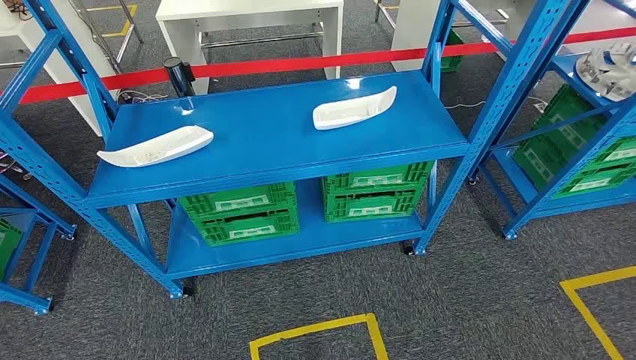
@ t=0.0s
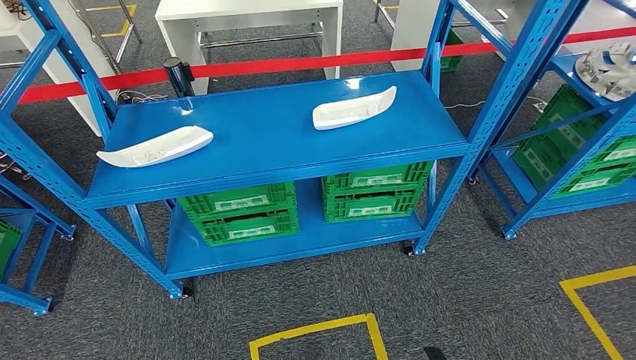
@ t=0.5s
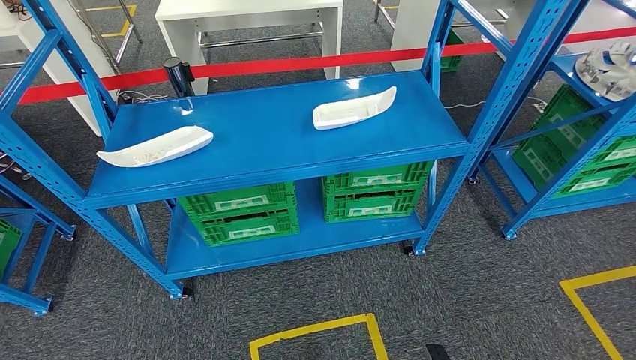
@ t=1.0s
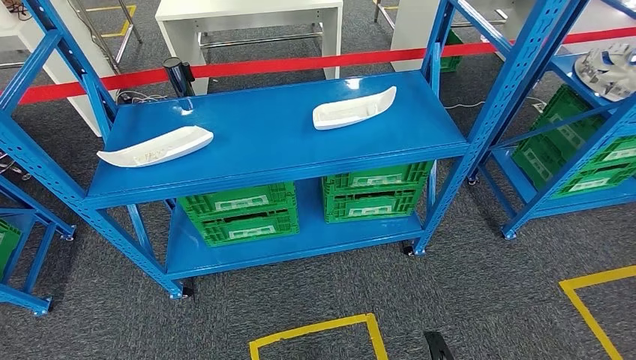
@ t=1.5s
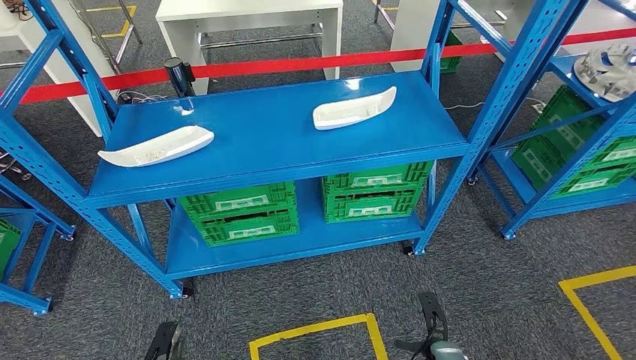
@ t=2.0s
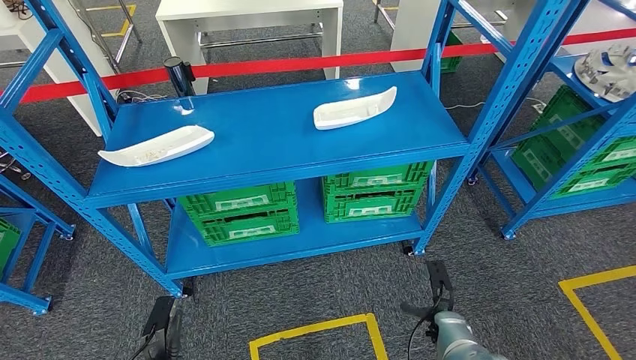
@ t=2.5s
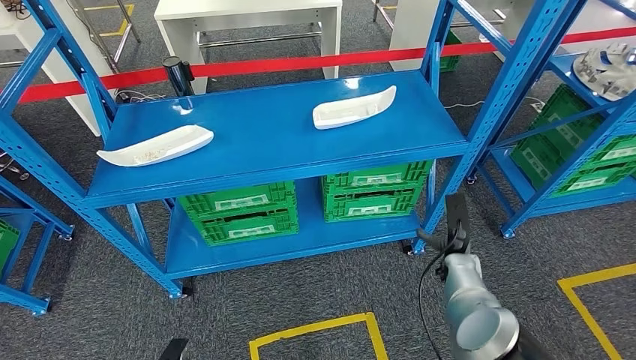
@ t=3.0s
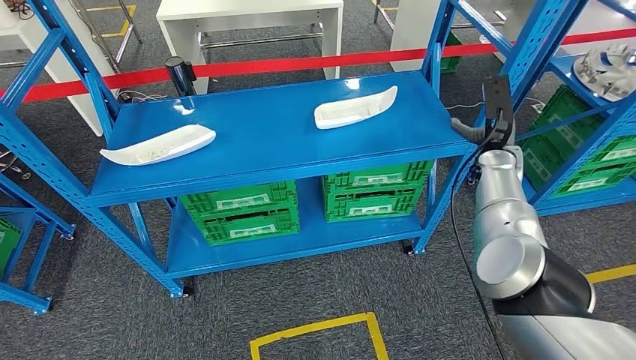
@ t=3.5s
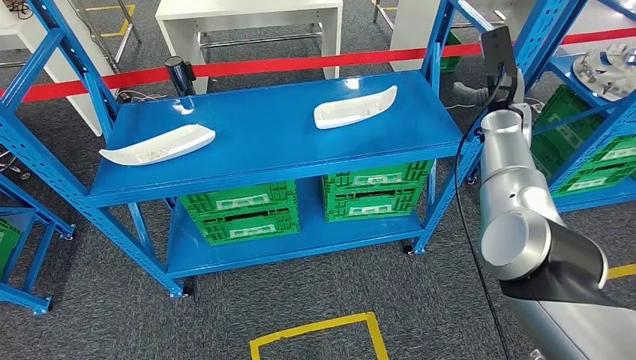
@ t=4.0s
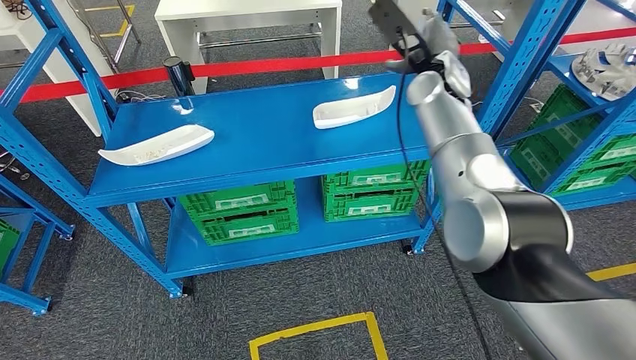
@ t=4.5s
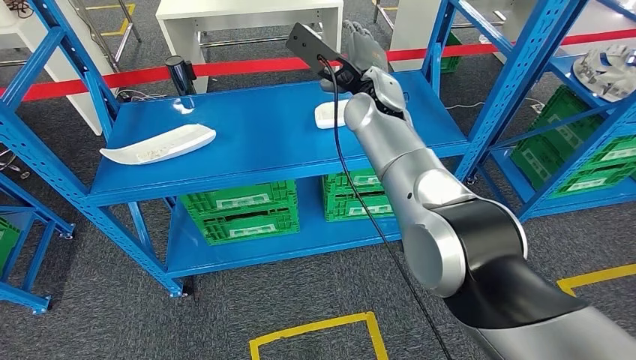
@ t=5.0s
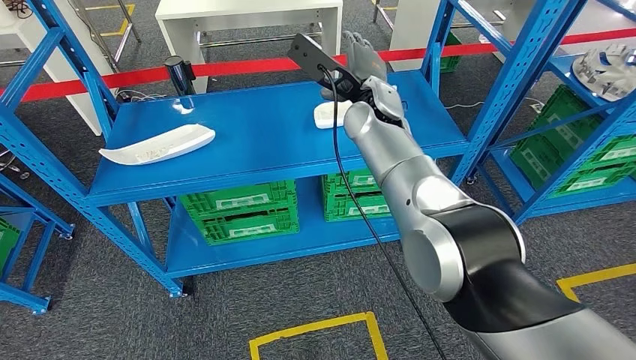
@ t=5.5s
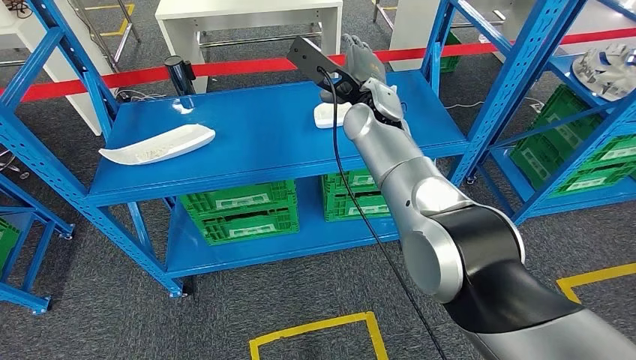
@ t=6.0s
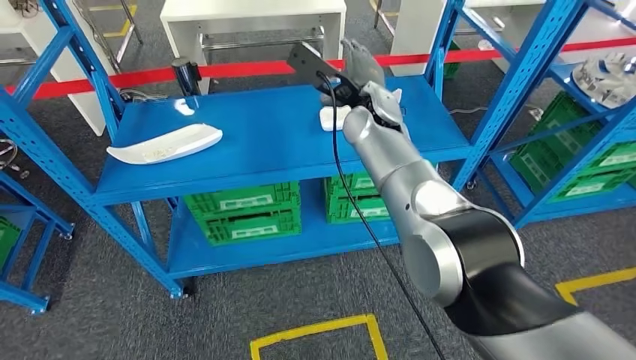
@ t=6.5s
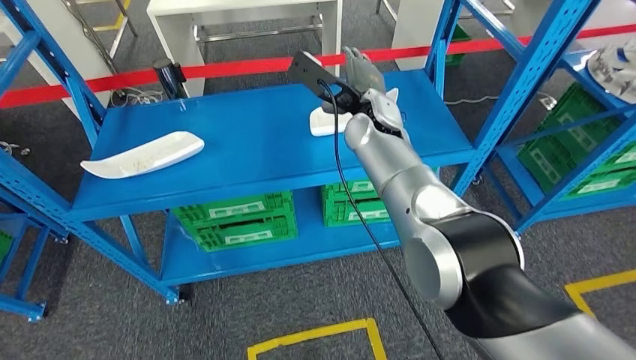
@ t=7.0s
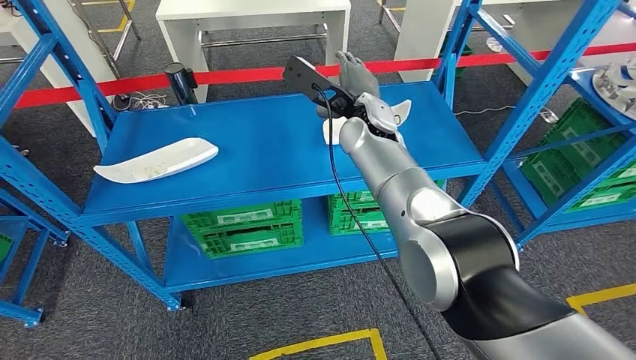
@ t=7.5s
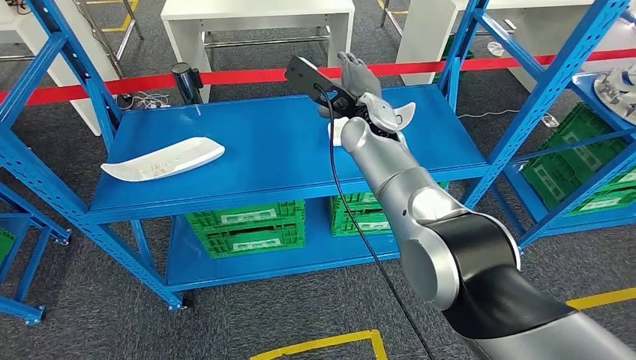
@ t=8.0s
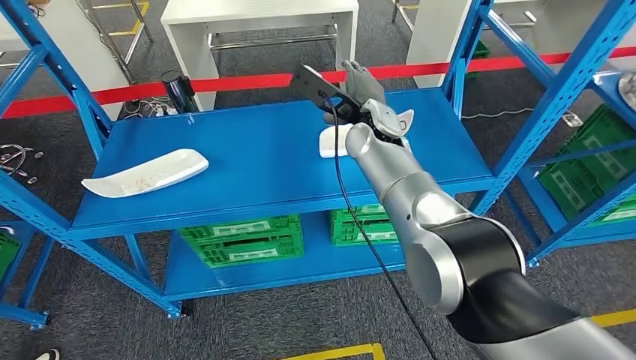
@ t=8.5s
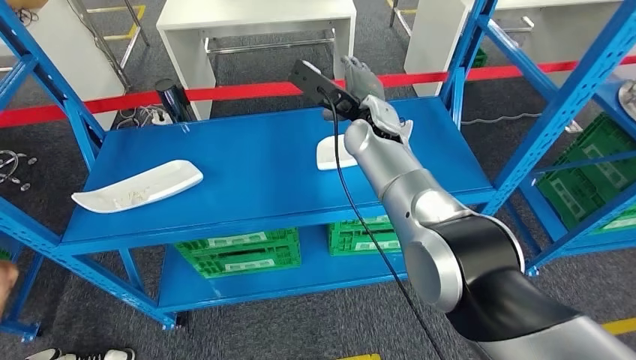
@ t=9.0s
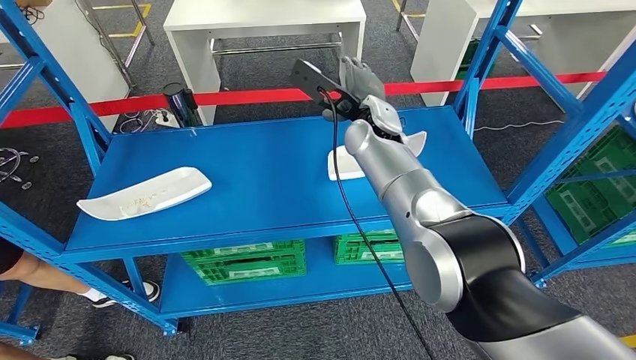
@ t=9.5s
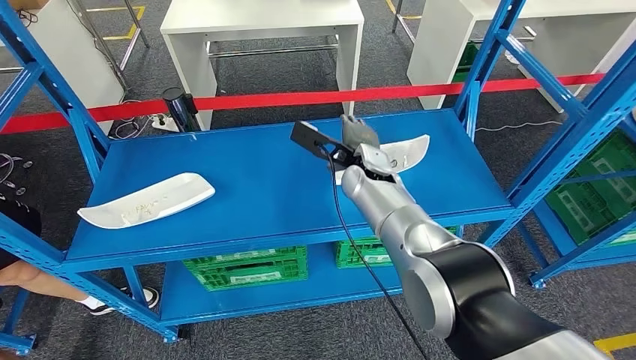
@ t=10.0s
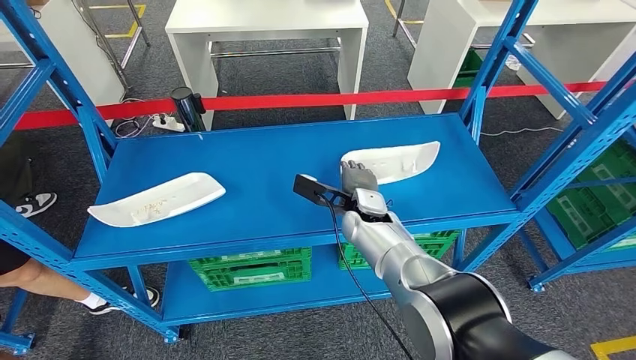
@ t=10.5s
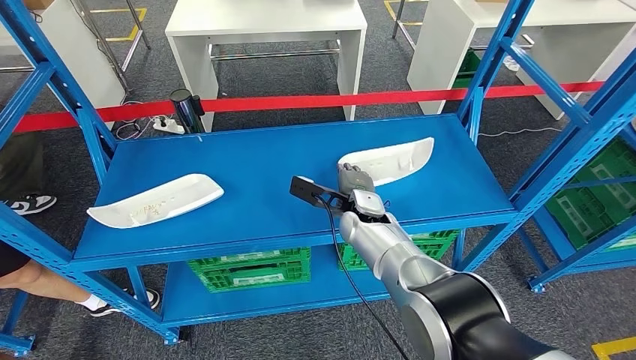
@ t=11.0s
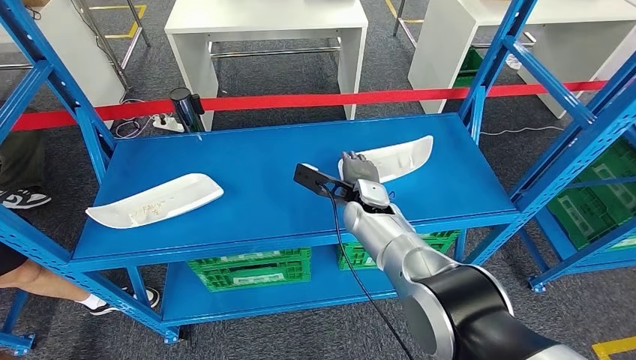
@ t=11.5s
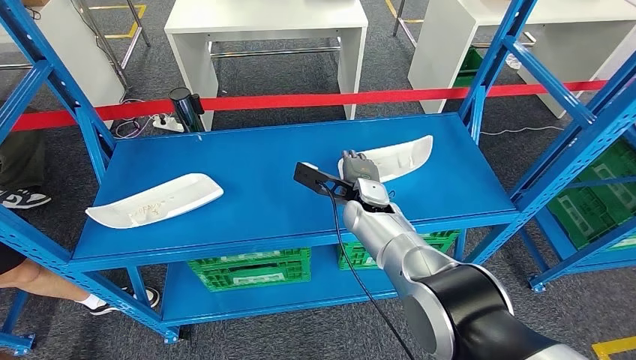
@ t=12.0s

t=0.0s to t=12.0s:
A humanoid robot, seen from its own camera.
t=2.0s to t=4.0s: The left hand travels backward by some 10 cm. The right hand shifts some 50 cm upward and forward.
t=4.0s to t=6.0s: The right hand is displaced to the left by some 25 cm.

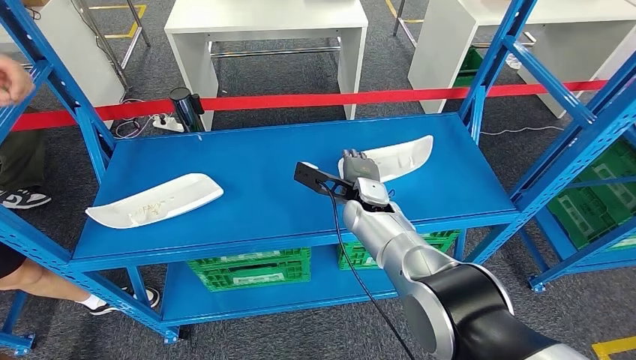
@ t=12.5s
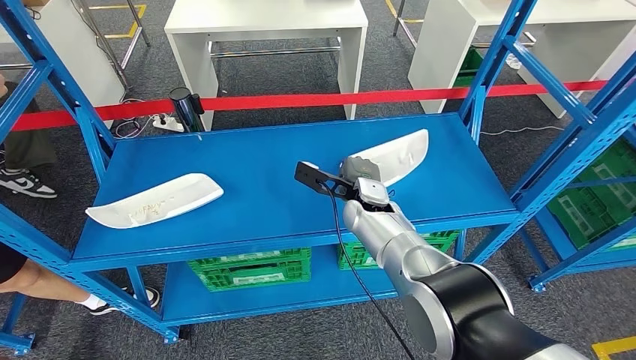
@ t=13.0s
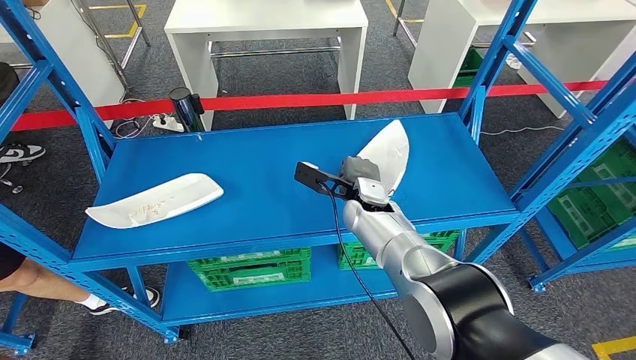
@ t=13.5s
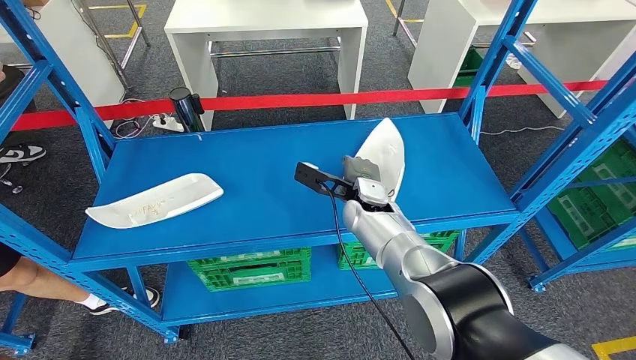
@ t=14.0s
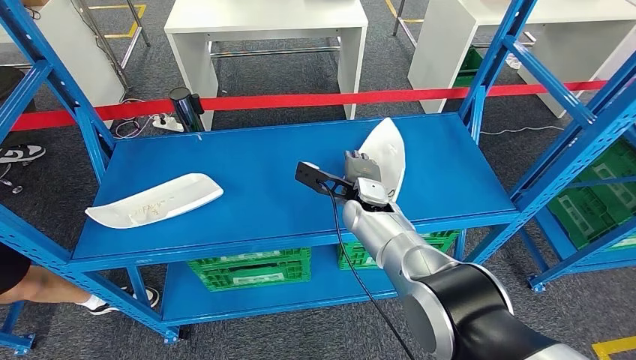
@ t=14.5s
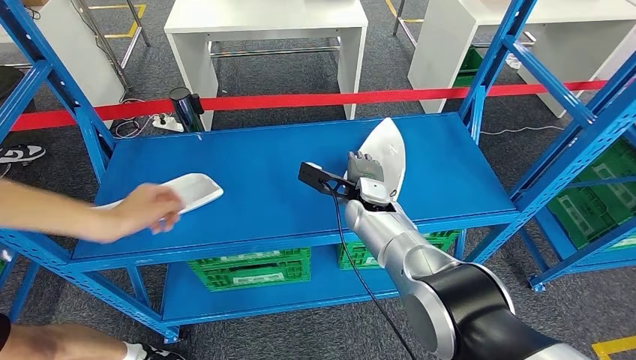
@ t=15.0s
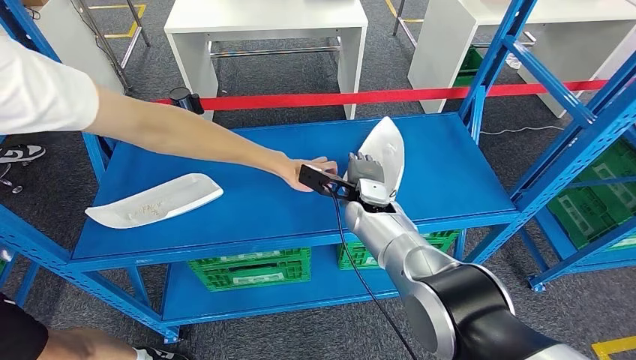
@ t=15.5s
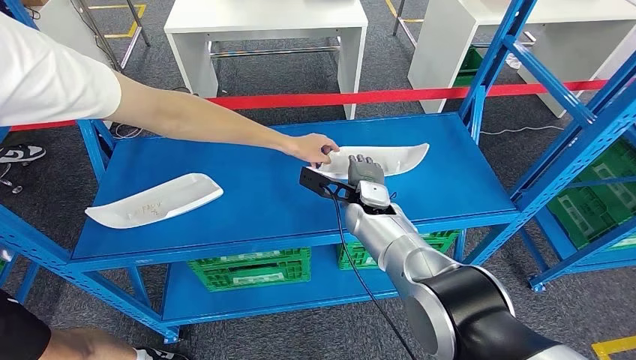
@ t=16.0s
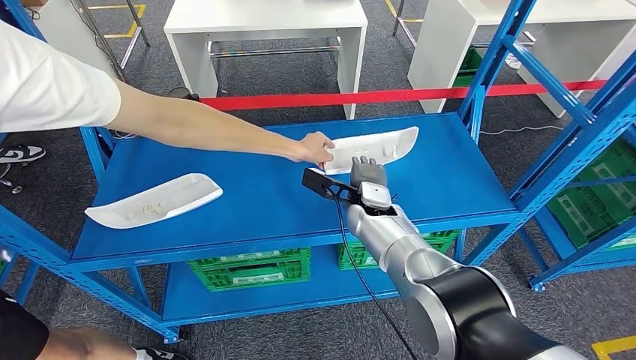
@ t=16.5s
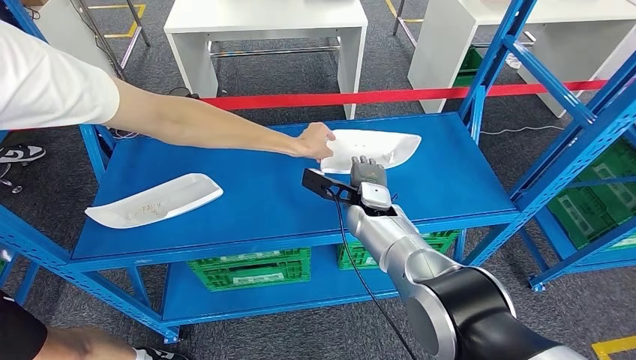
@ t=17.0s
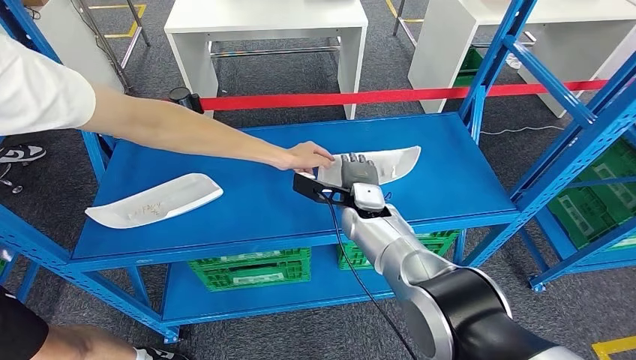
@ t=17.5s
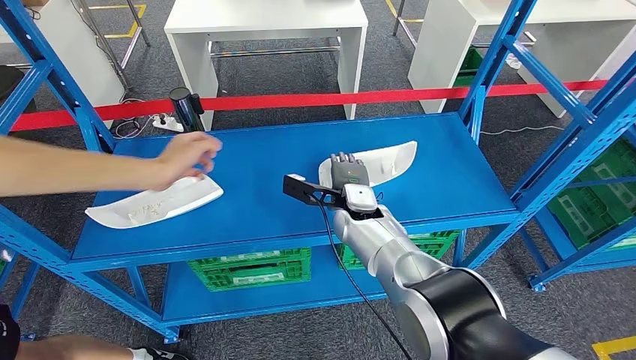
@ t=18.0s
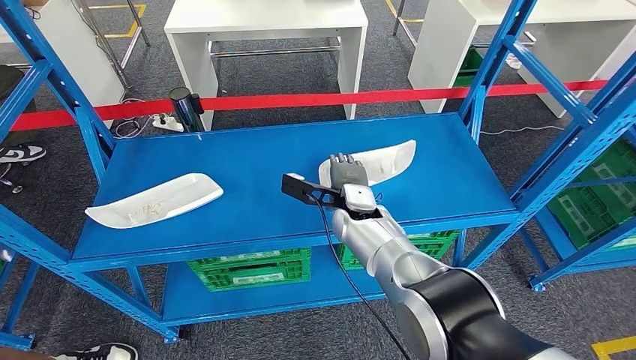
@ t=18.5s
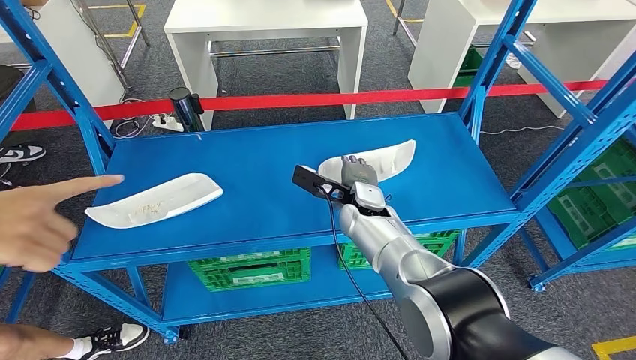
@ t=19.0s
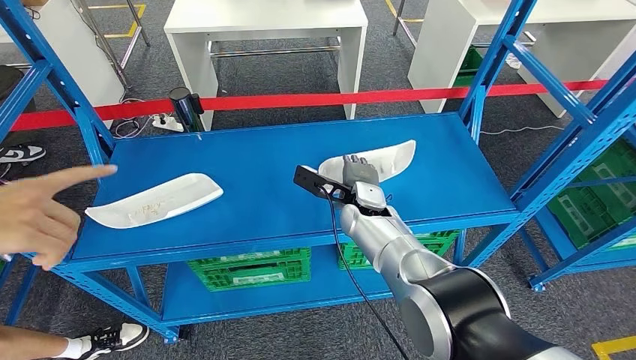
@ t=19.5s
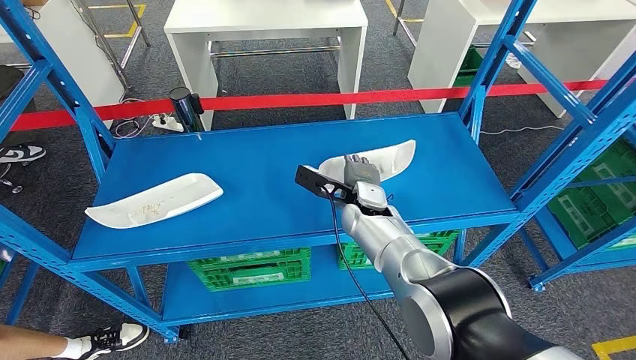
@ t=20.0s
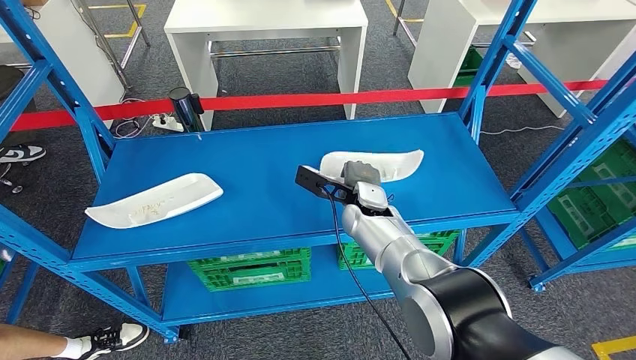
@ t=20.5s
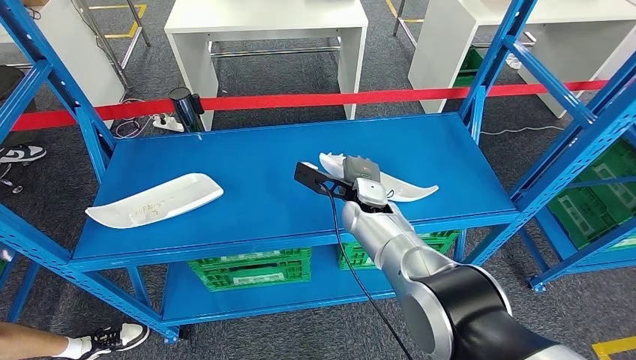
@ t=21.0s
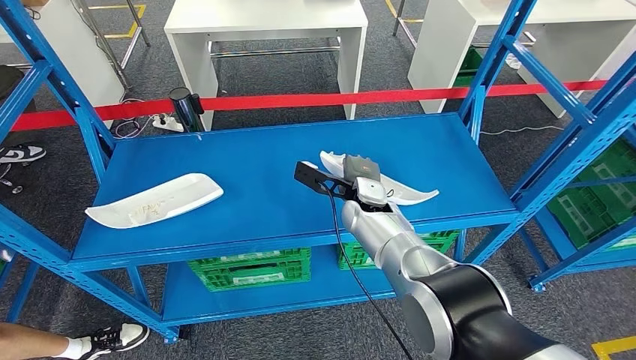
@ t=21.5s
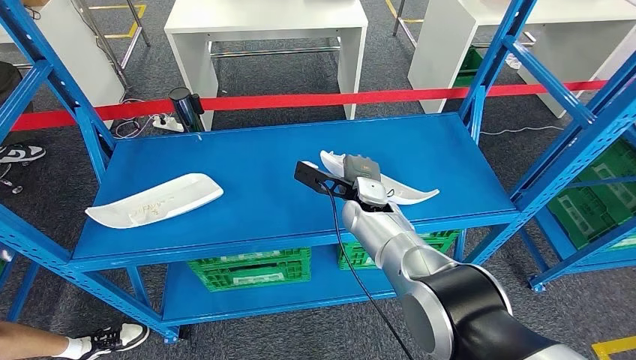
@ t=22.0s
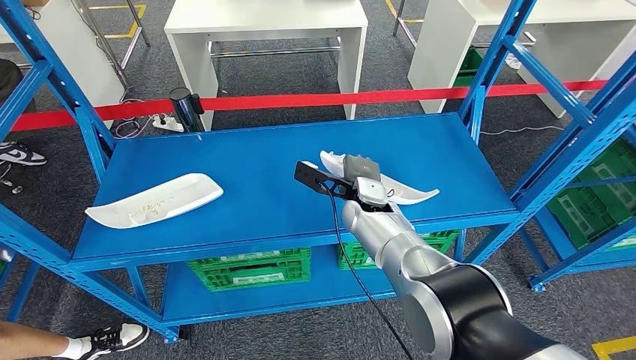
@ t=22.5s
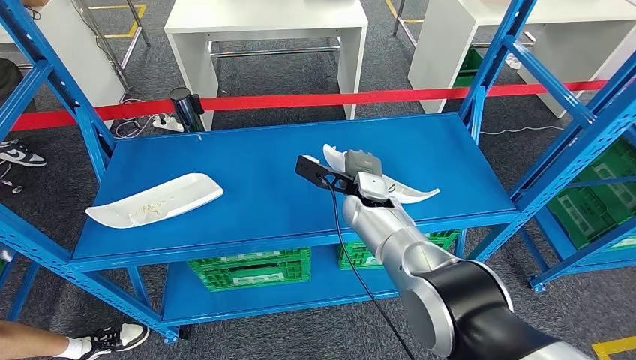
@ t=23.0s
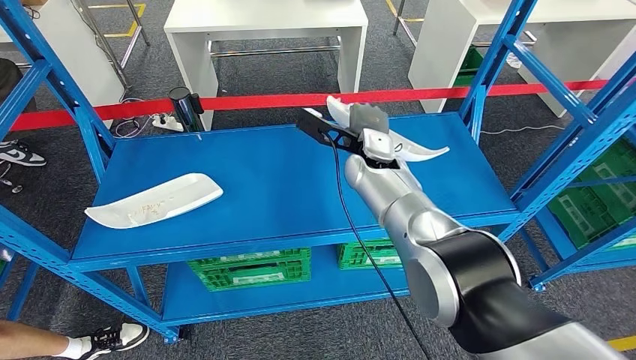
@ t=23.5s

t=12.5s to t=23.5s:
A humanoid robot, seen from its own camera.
t=12.5s to t=16.0s: Both hands stay put.
t=16.0s to t=20.0s: The hands move only a little.
t=20.0s to t=21.5s: The two hands keep their place.
t=21.5s to t=23.5s: The right hand travels upward by approximately 10 cm.
